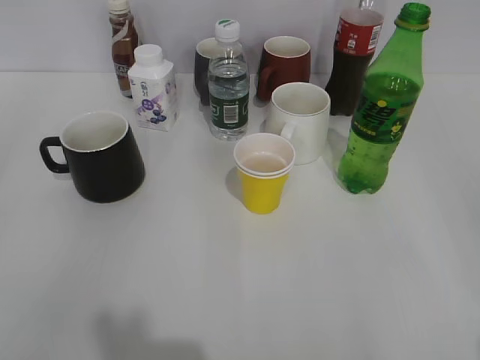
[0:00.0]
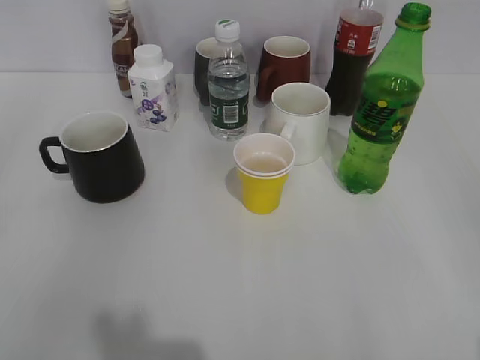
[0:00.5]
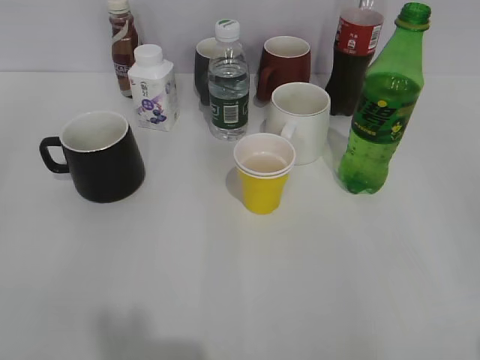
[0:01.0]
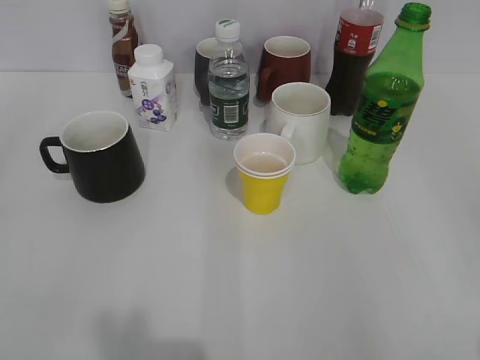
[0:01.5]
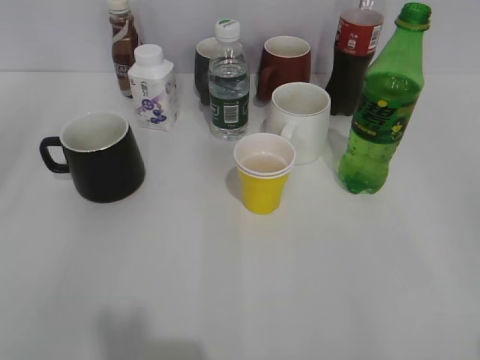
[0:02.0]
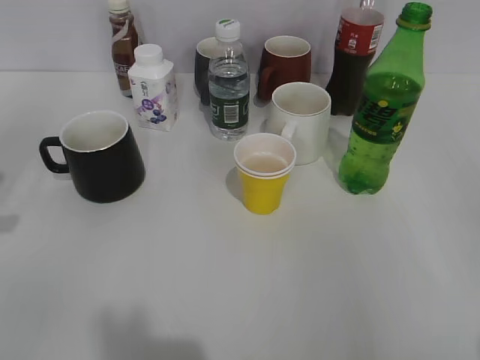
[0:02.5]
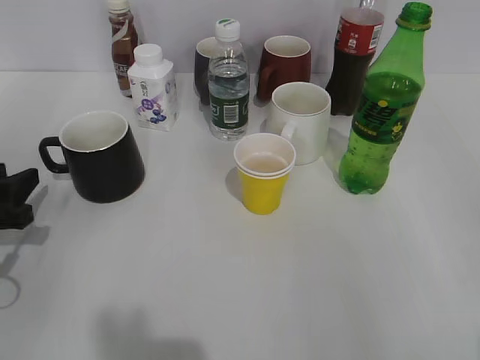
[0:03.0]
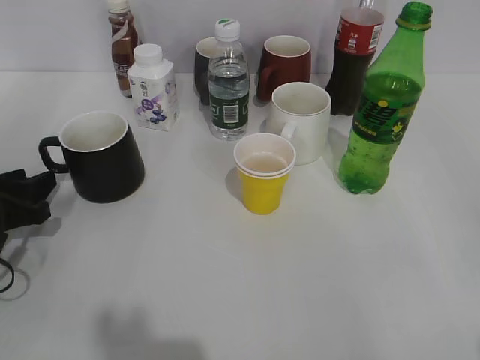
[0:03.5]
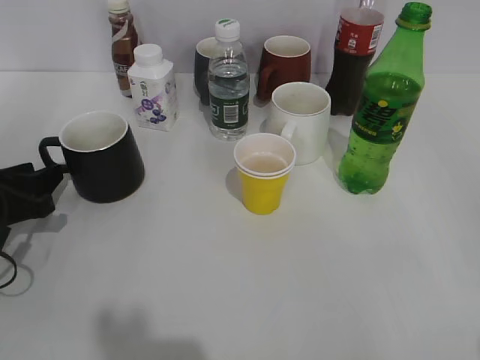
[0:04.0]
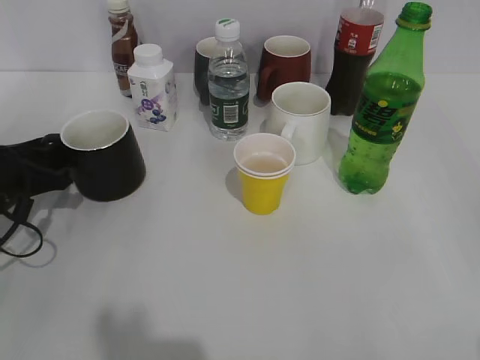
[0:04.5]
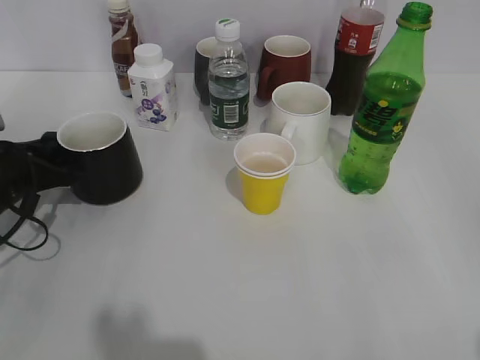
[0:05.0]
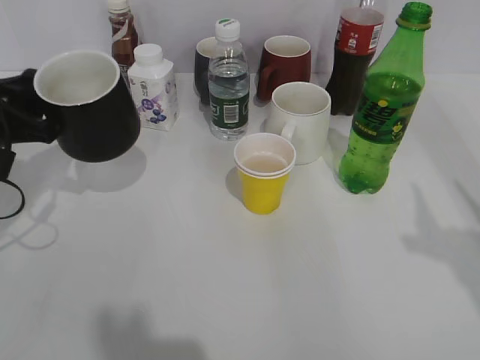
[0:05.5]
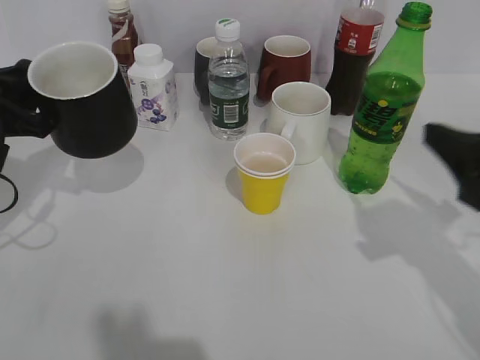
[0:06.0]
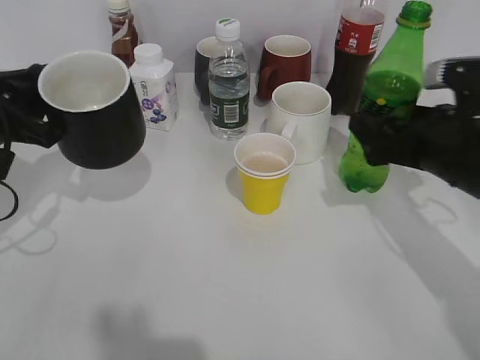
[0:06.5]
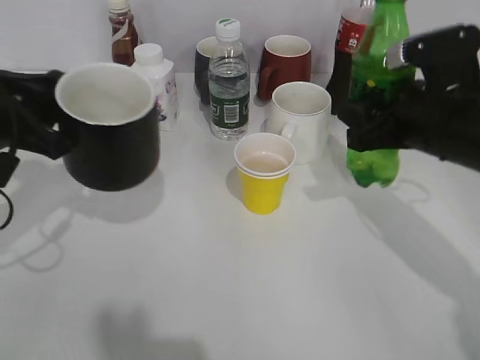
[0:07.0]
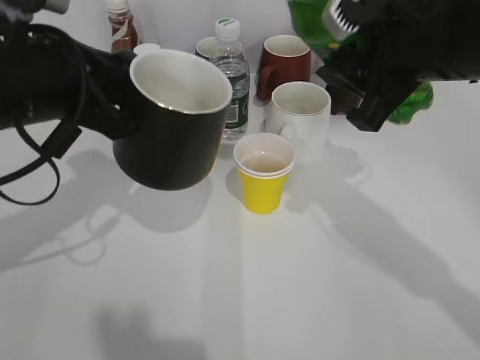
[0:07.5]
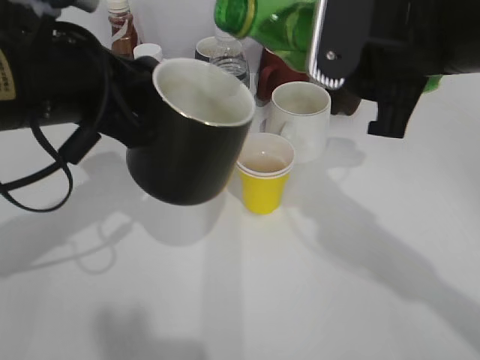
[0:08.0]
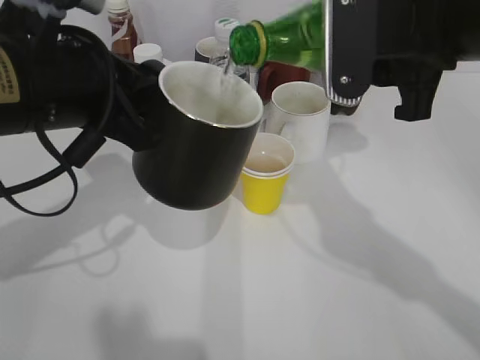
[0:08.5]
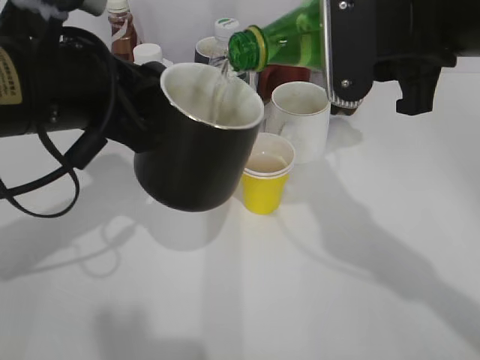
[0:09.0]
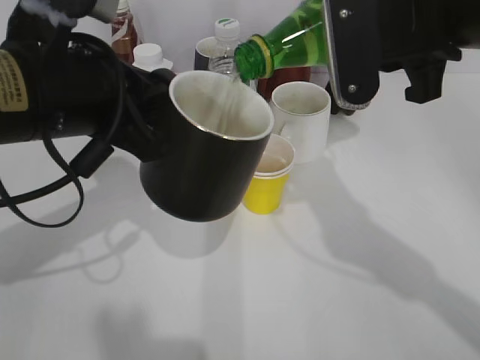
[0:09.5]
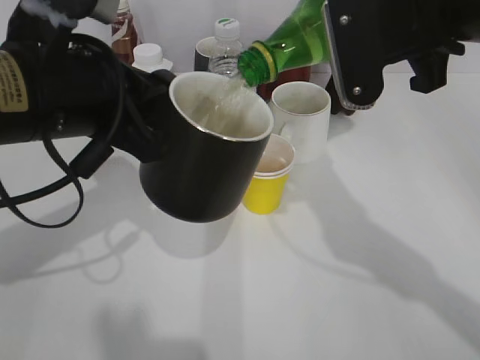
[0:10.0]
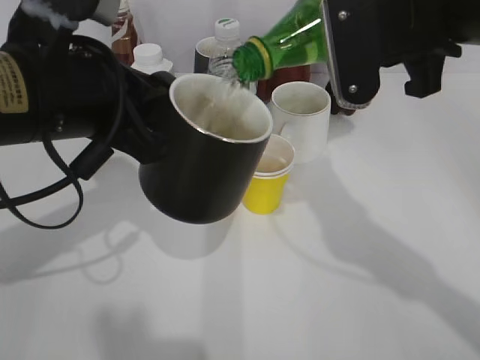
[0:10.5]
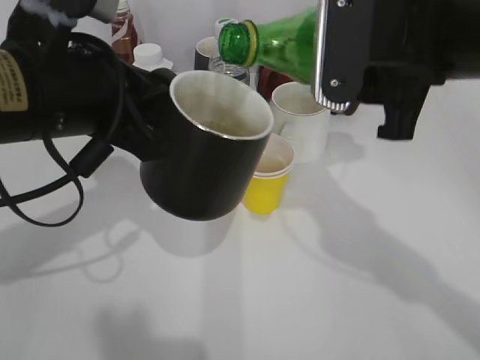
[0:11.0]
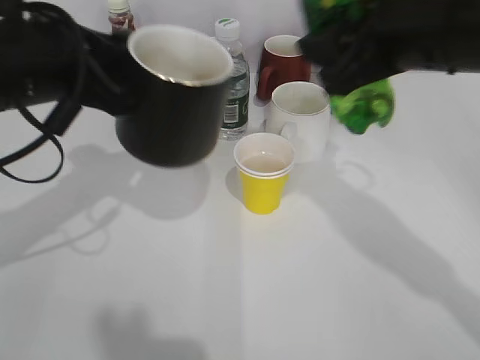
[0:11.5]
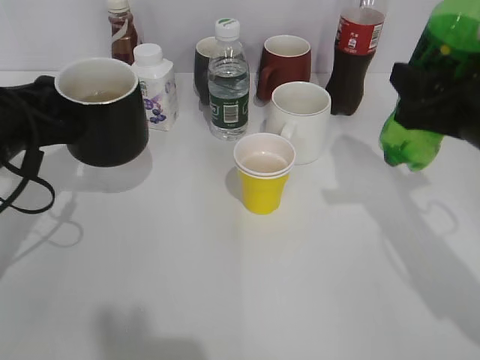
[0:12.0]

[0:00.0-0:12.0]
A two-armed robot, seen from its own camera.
Step, 0:02.0 to 0:04.5: Grasp the black cup with left gripper.
Step, 0:05.0 to 0:05.5: Lift the black cup with left gripper.
Step, 0:06.0 to 0:06.5: Grasp the bottle with sprite with right gripper.
Step, 0:07.0 to 0:11.0: Pour the sprite from bottle to cup with right gripper.
0:02.0 to 0:04.0: The left gripper moves downward and forward, approximately 30 cm, and opens.
0:04.0 to 0:06.0: The right gripper shifts roughly 20 cm forward, and closes, then reopens. The left gripper is displaced upward by about 10 cm, and closes its fingers.
0:06.0 to 0:08.0: The right gripper shifts approximately 15 cm to the left, upward and forward, and closes its fingers, while the left gripper heads to the right and upward, covering approximately 15 cm.
0:10.0 to 0:12.0: The left gripper shifts about 15 cm to the left, downward and forward. Meanwhile the right gripper shifts some 10 cm to the right and downward.

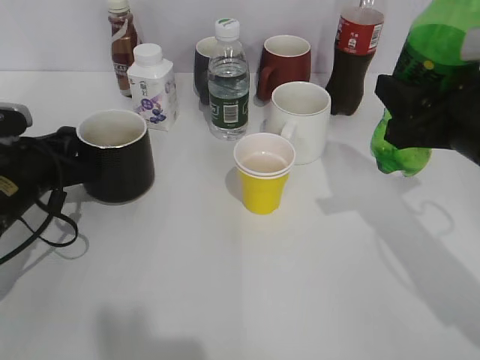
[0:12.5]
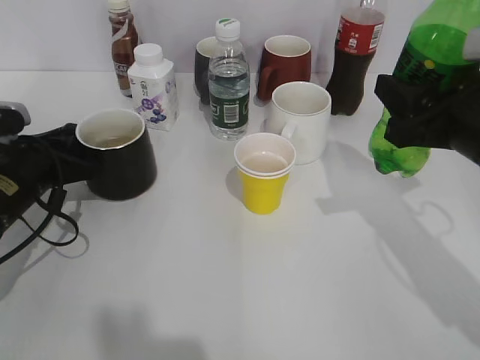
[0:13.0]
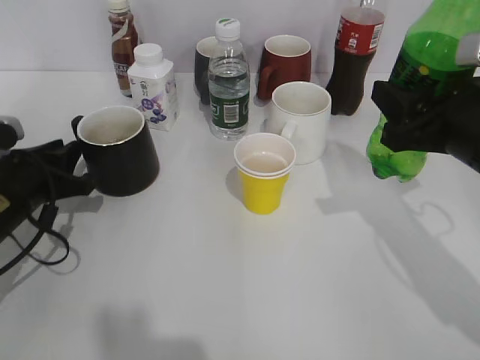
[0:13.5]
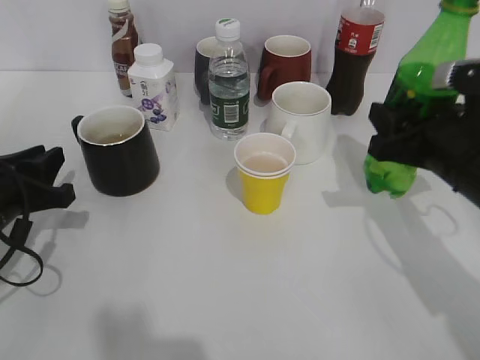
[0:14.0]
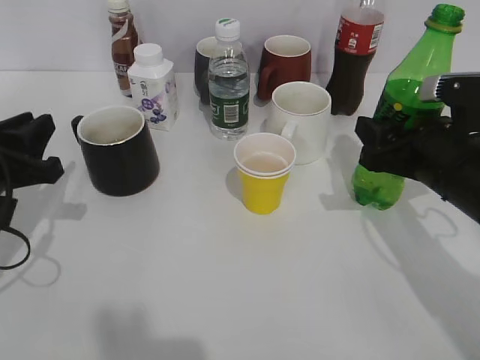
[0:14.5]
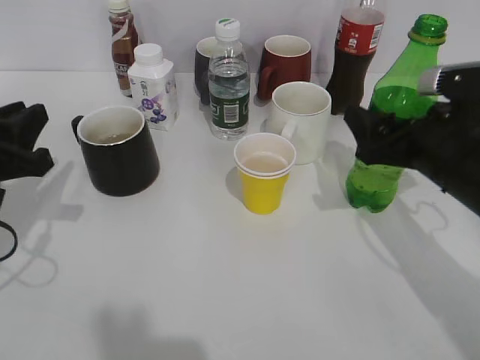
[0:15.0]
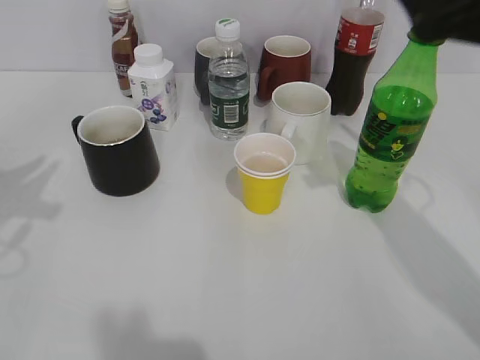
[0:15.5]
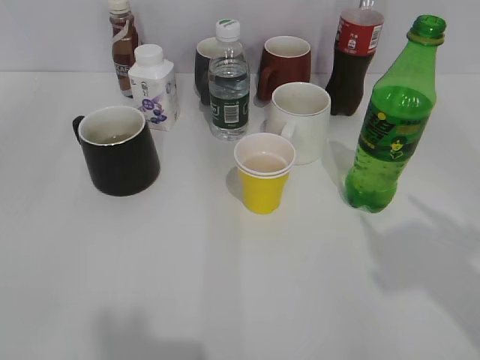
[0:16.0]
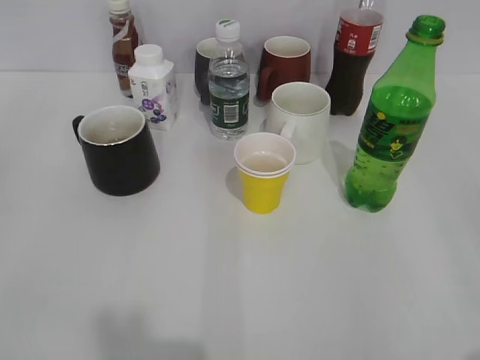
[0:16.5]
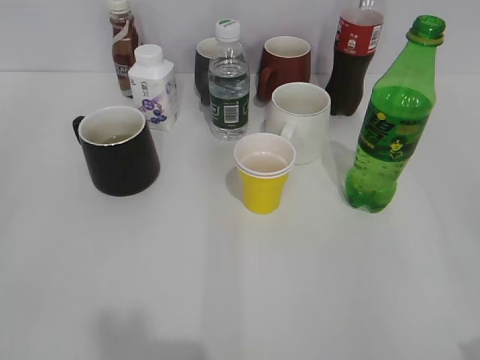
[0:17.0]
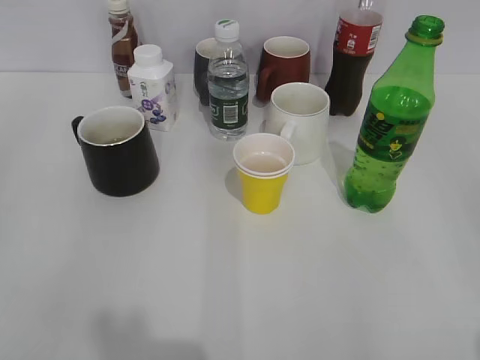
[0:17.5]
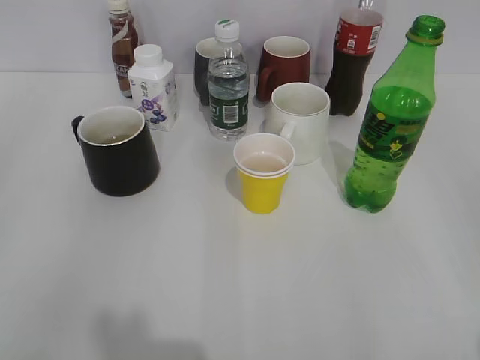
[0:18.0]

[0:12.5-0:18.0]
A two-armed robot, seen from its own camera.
Step, 0:14.0 to 0:15.0: Place the sprite bottle on the table with right gripper.
0:12.5 to 0:14.5: The right gripper moves downward, roughly 5 cm, while the left gripper goes roughly 5 cm backward, and opens.
0:14.5 to 0:16.0: Both grippers travel together upward and backward, some 25 cm. The right gripper opens up, while the left gripper opens.
0:16.0 to 0:18.0: The right gripper shifts about 15 cm backward and downward.
